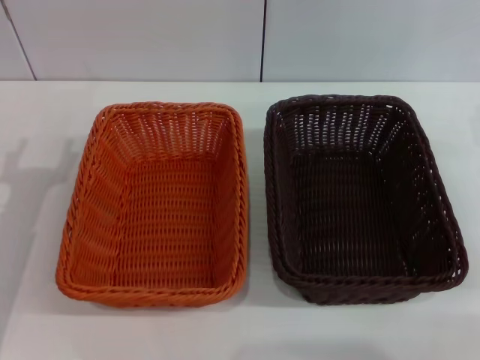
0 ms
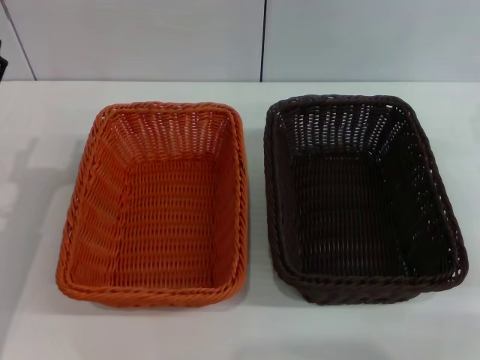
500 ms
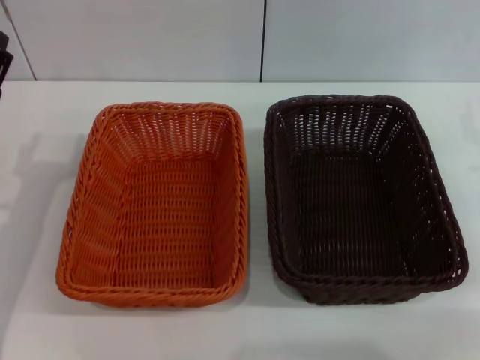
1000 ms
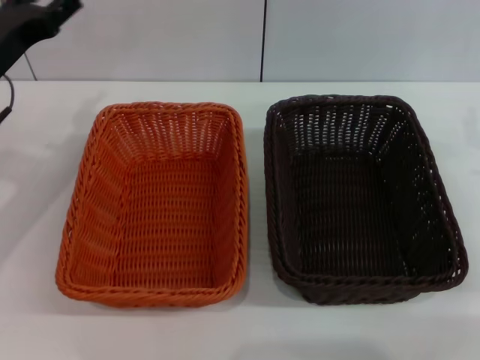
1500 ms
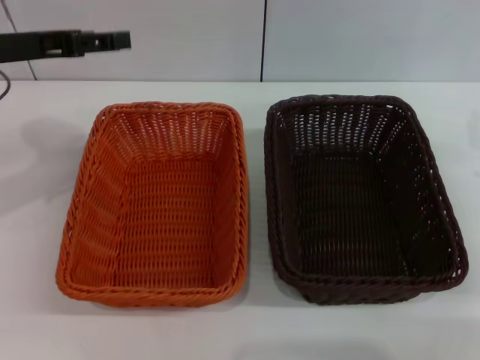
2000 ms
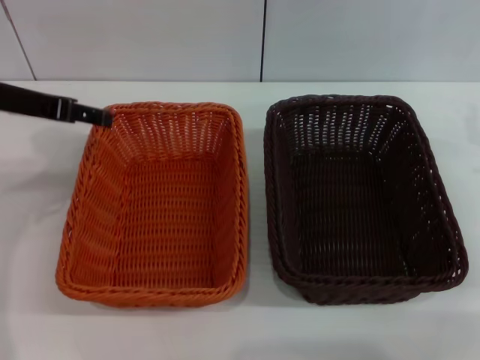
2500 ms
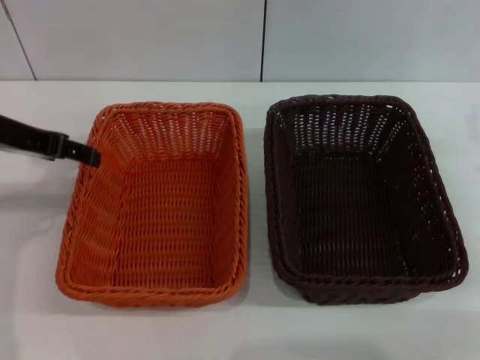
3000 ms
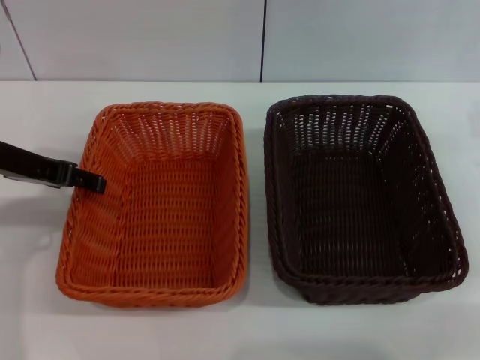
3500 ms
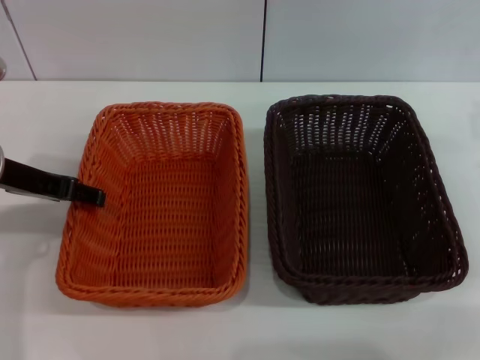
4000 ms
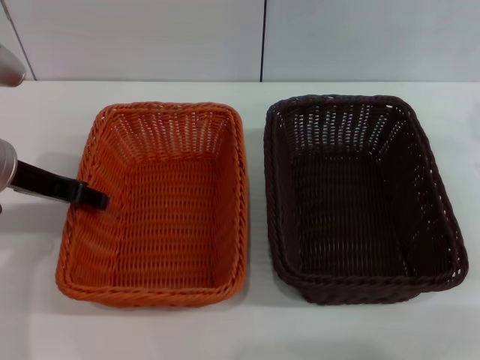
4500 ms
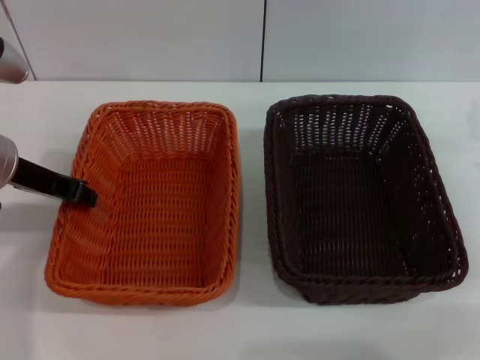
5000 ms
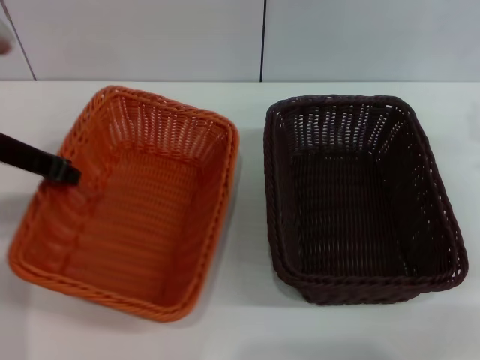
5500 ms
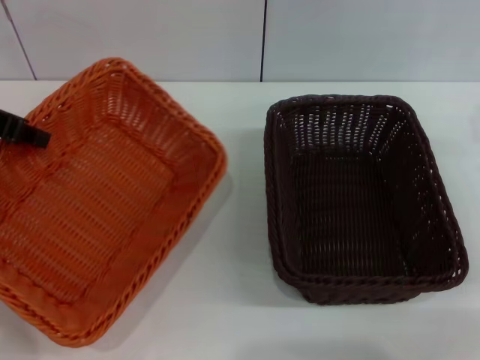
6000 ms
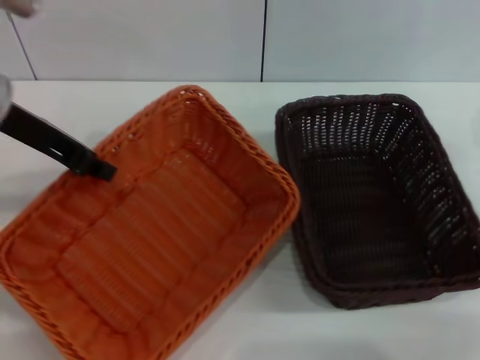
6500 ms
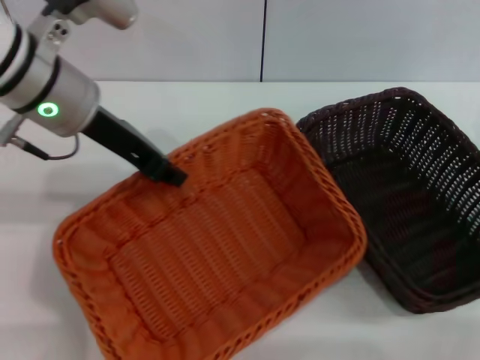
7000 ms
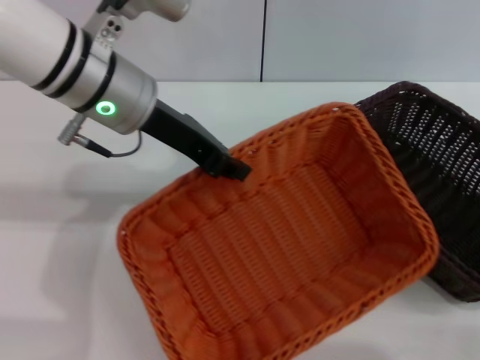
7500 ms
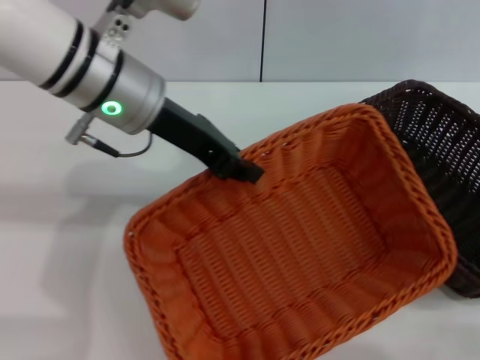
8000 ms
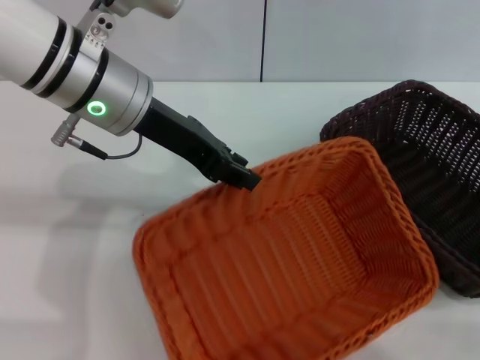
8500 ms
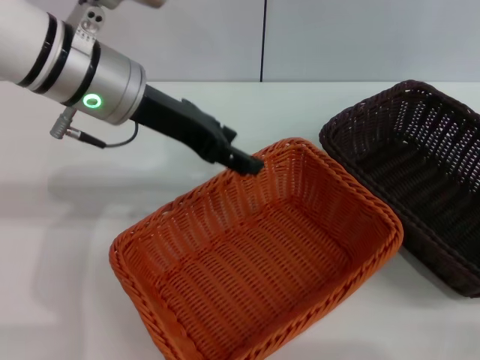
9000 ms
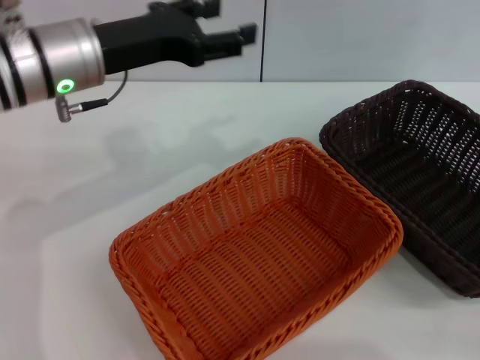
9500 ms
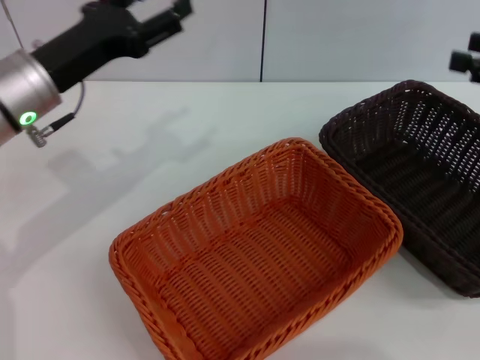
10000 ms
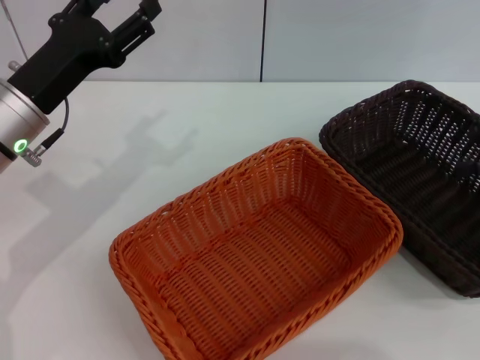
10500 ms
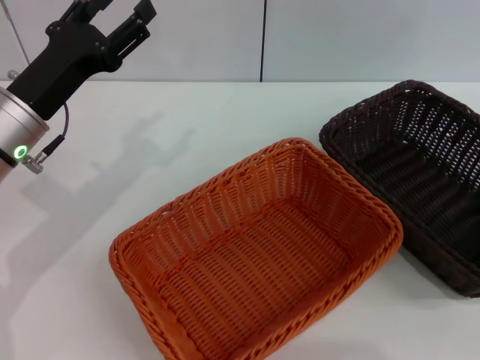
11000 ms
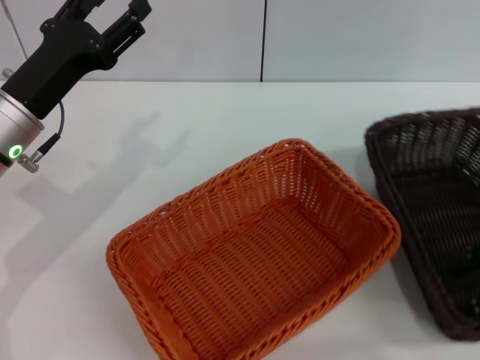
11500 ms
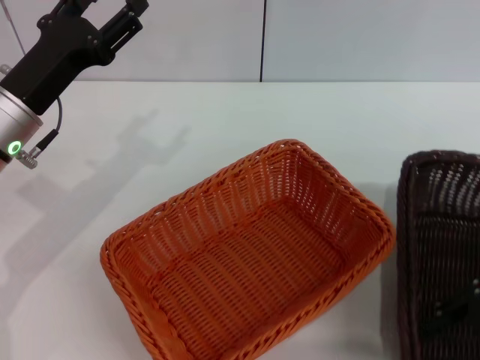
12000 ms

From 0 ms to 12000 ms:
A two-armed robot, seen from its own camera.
Step, from 0 ms to 5500 ms: Pick up the light basket with the left gripper.
Step, from 6000 ms to 8500 ms: Place the light basket in the center of view with the left gripper.
From 0 ms to 2000 ms: The left gripper goes some 15 cm upward and forward.
From 2000 ms to 4000 ms: The left gripper is displaced downward by approximately 5 cm.
From 4000 ms to 6000 ms: The left gripper travels upward by about 10 cm, and closes.
From 6000 ms to 8000 ms: The left gripper travels to the right by some 15 cm.
From 8000 ms to 10000 ms: The left gripper heads to the left and downward, covering about 10 cm, and opens its fingers; the right gripper travels upward by approximately 15 cm.
From 10000 ms to 12000 ms: The right gripper travels backward, downward and to the left by roughly 10 cm.

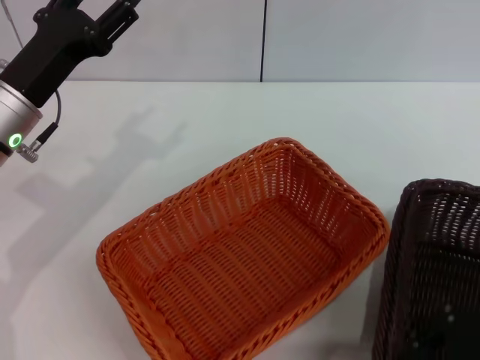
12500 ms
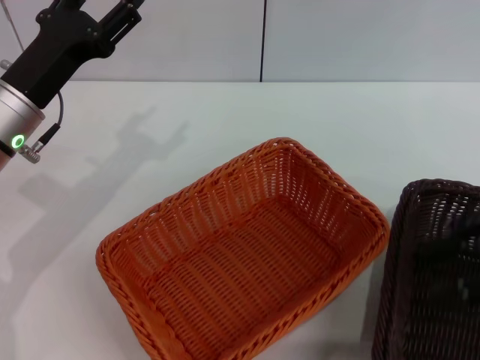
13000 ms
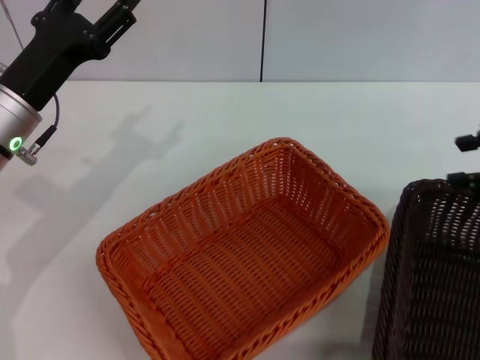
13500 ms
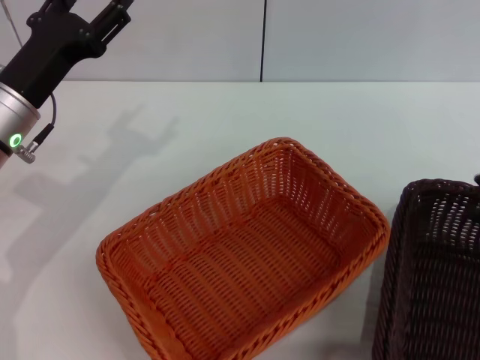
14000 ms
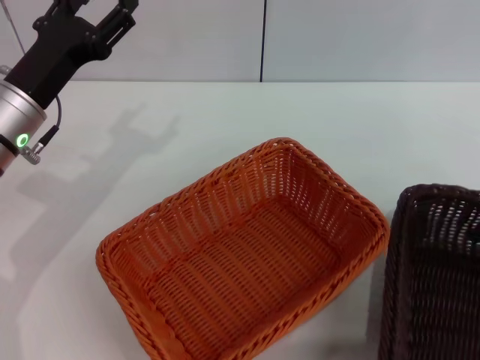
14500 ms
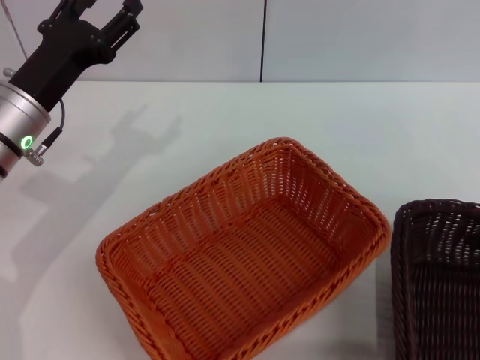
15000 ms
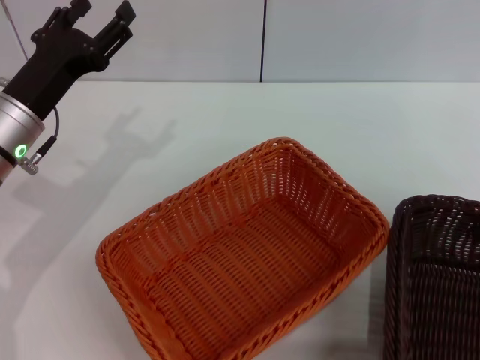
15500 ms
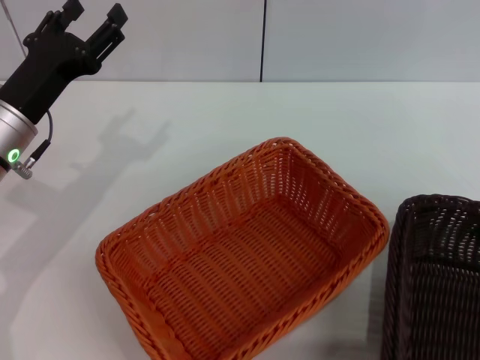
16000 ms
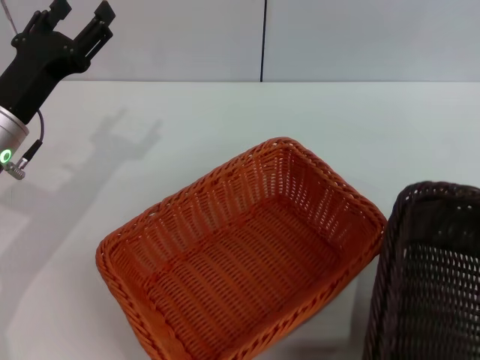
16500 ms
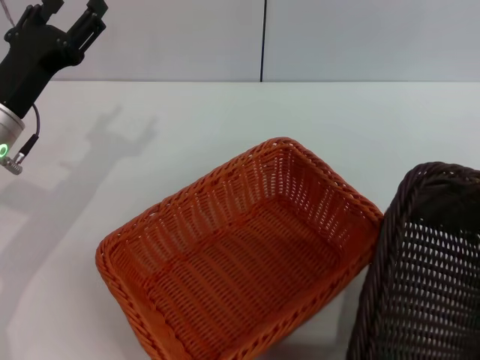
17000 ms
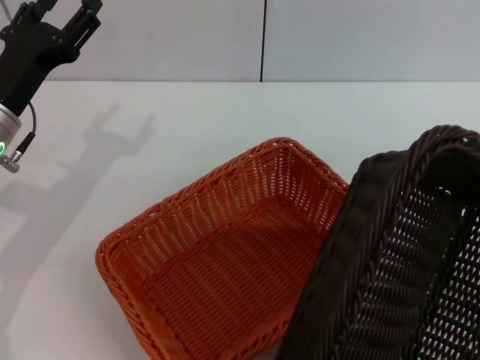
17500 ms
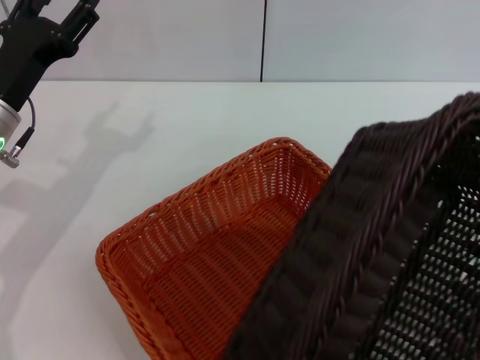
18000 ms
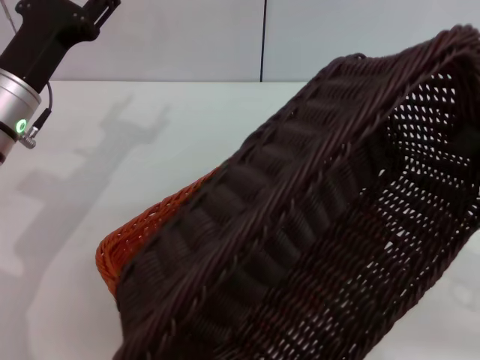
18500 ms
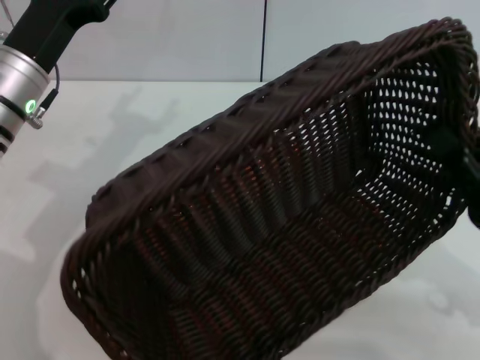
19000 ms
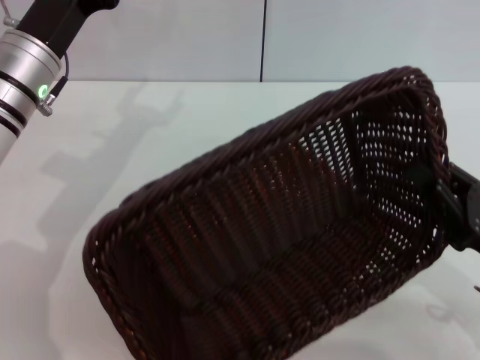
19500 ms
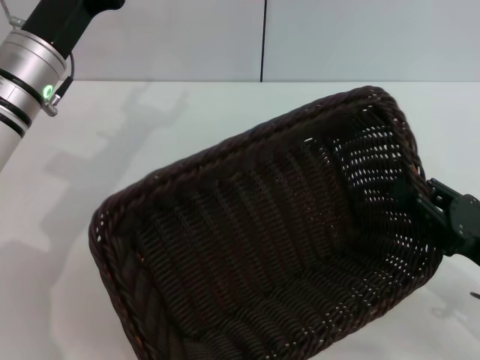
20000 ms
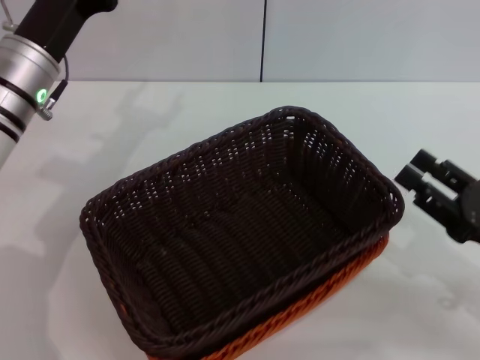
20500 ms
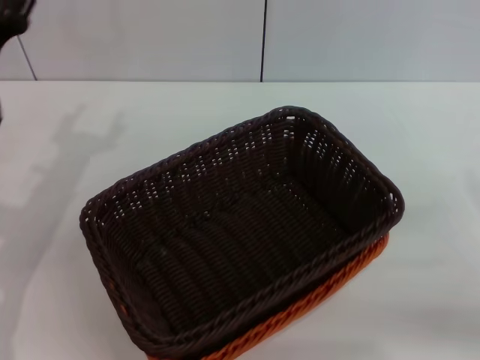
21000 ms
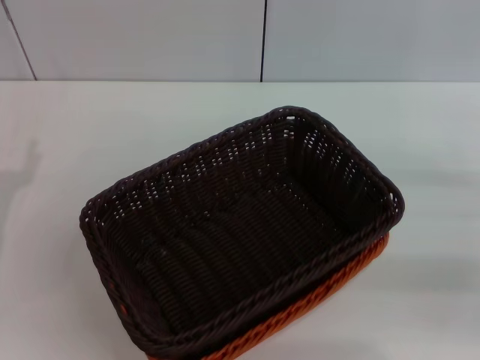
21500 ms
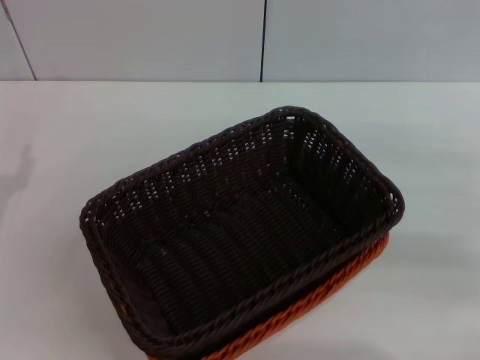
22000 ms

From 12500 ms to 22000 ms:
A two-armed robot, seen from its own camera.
Step, from 12500 ms to 16500 ms: Pick up the dark basket with the right gripper.
Step, from 17000 ms to 20000 ms: Place the dark basket on the light basket with the right gripper.
From 12500 ms to 14500 ms: The right gripper shifts roughly 10 cm to the right and forward.
From 14500 ms to 16500 ms: The right gripper ends up about 5 cm from where it was, and closes up.
From 16500 ms to 18000 ms: The right gripper ends up some 5 cm from where it was.
From 18000 ms to 20000 ms: The left gripper moves roughly 5 cm; the right gripper moves downward and to the left, roughly 15 cm.
From 20000 ms to 22000 ms: The right gripper travels forward, to the right and upward by approximately 15 cm, and opens its fingers. Meanwhile the left gripper shifts approximately 20 cm backward, to the left and downward.
